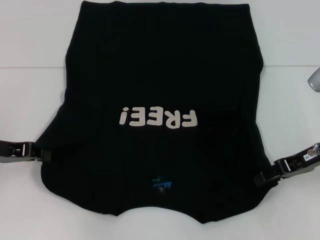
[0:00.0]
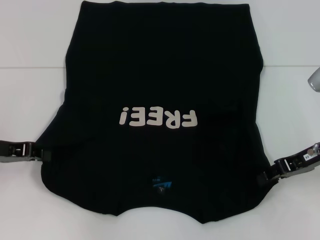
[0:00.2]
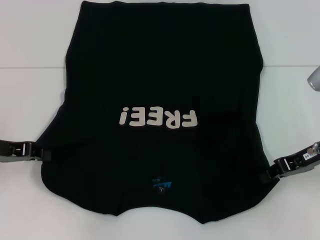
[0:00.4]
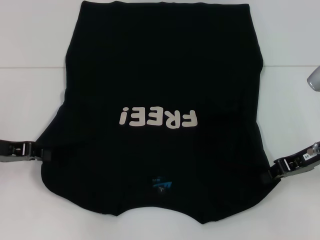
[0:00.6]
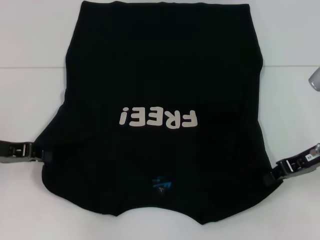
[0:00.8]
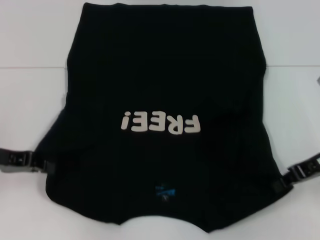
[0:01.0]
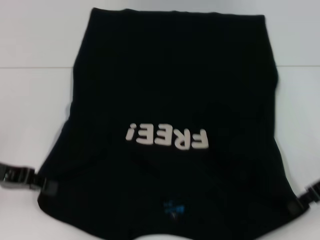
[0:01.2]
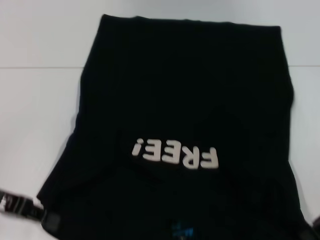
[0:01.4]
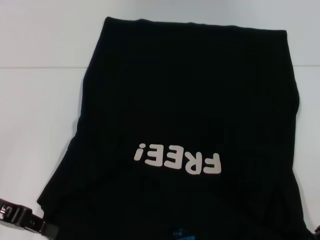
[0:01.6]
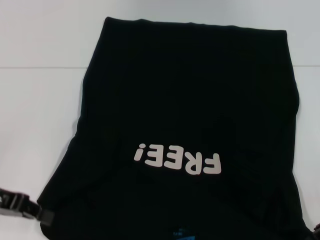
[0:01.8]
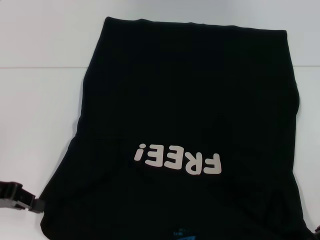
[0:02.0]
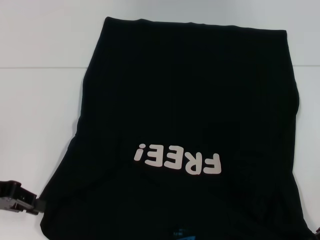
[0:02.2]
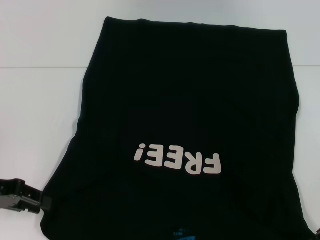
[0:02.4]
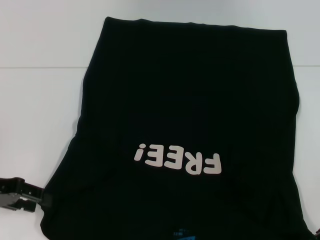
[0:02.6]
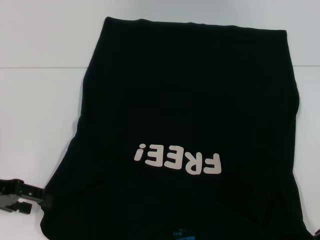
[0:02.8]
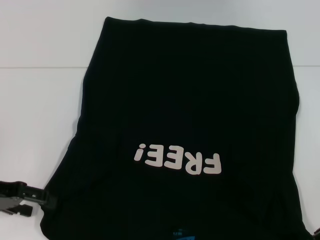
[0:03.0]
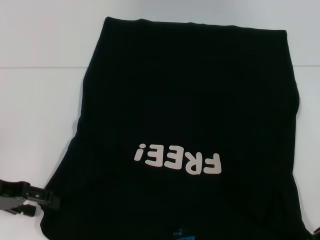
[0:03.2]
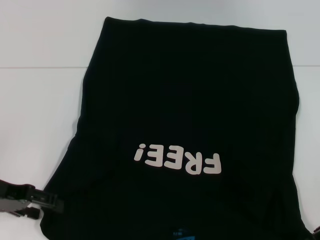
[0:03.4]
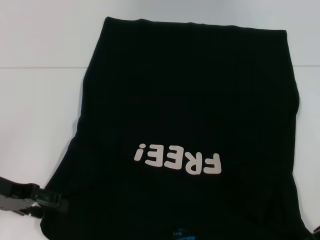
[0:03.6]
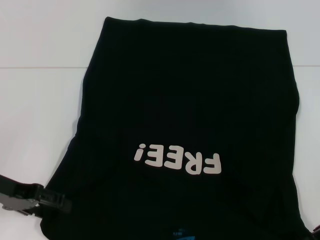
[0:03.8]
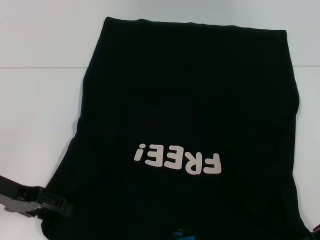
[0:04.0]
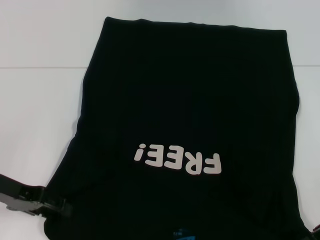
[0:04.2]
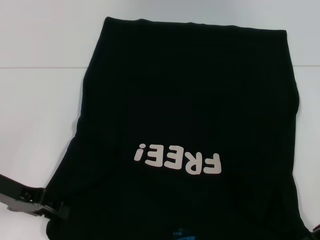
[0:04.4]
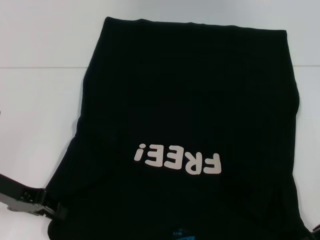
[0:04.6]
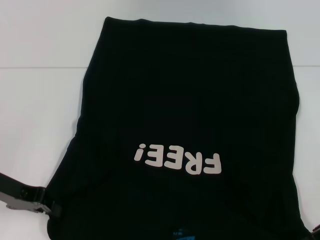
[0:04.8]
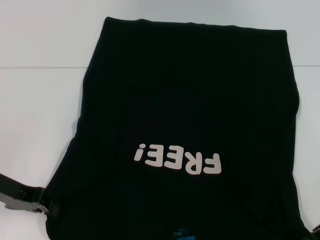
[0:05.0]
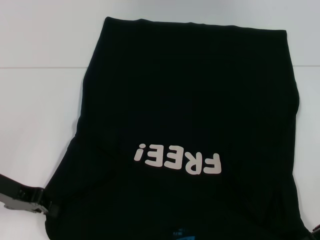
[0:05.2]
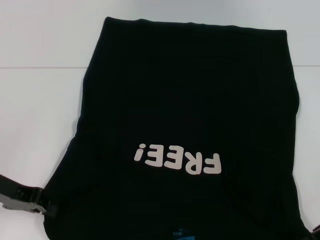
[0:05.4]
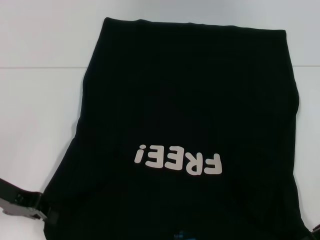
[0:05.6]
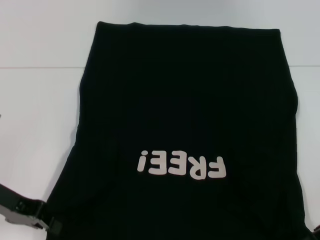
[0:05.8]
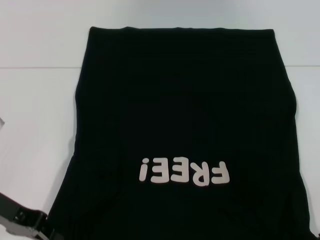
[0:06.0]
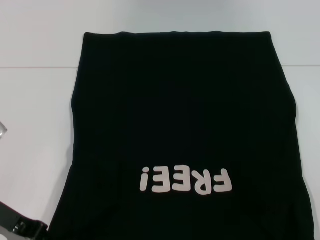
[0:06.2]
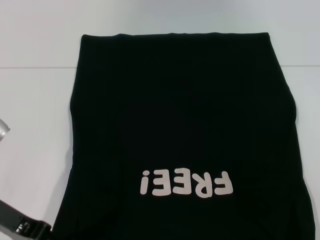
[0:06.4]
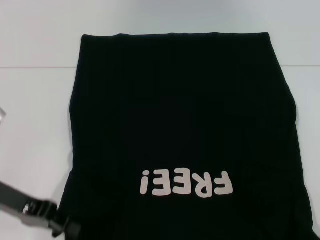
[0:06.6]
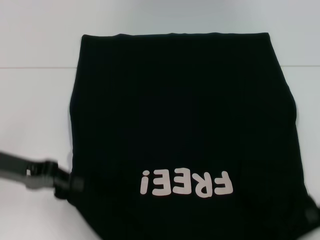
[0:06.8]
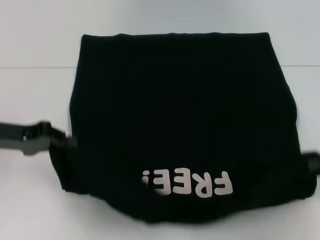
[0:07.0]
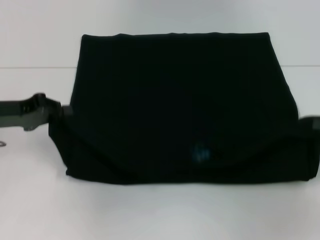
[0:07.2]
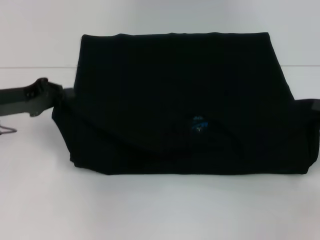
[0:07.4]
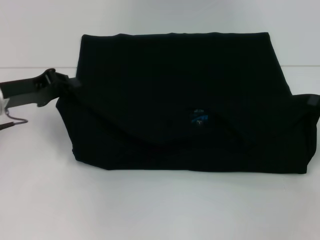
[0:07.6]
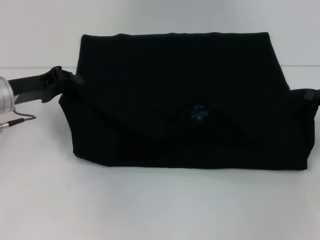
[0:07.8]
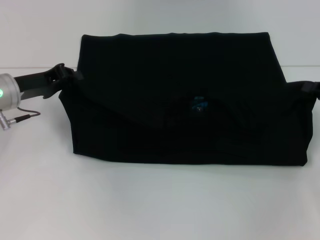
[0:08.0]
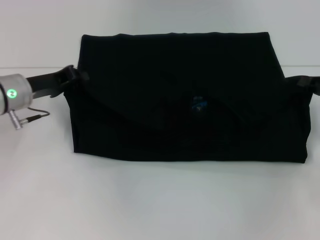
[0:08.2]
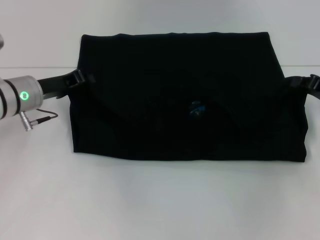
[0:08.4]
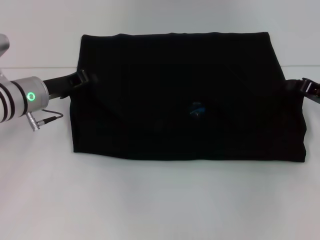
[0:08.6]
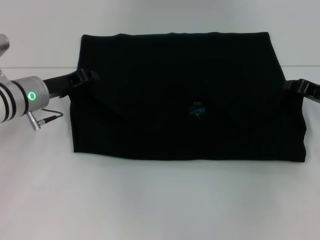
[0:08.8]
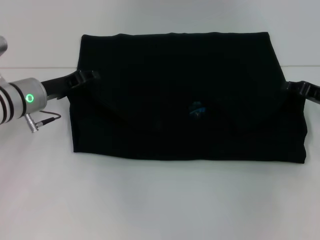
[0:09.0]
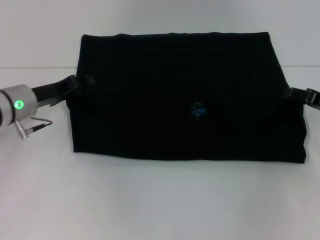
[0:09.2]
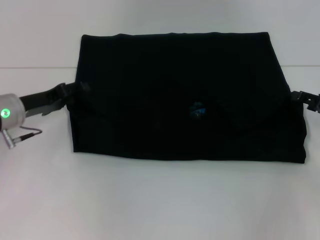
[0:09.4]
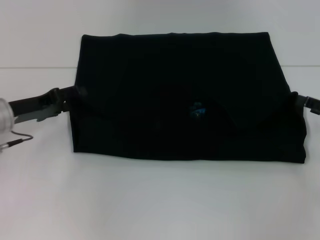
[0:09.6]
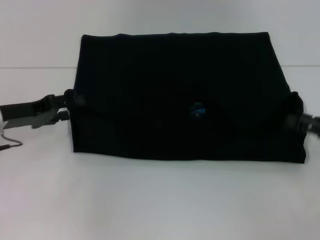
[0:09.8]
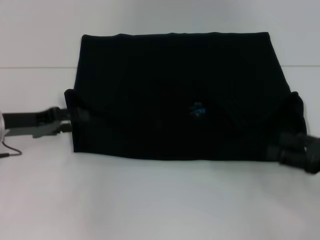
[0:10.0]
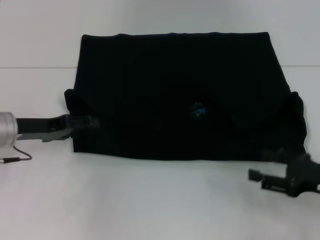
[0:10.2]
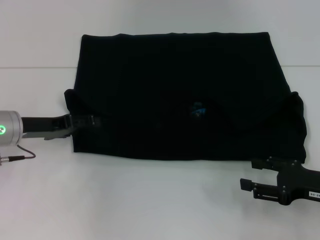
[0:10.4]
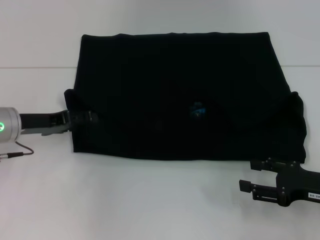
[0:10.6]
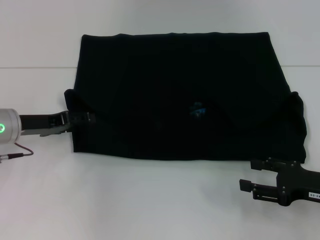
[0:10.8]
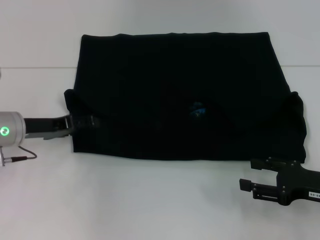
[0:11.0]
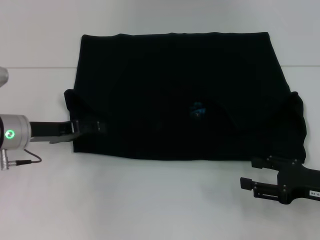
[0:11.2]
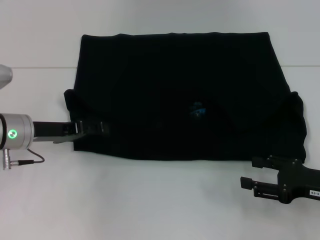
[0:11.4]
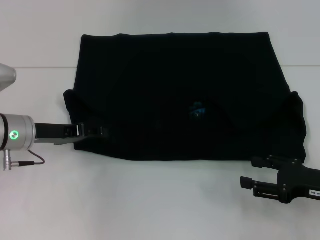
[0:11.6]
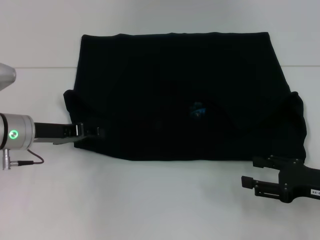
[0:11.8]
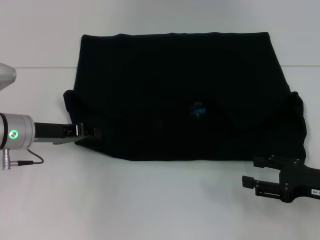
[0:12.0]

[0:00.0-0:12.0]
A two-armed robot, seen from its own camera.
Step, 0:00.8 to 0:09.4: Fold the clothes with your left hand.
Step, 0:00.8 to 0:09.4: Fold the clothes with your right hand.
0:00.0 to 0:01.6: The left gripper changes place by some 5 cm, while the right gripper moves backward, approximately 5 cm, and closes up.
0:01.6 to 0:03.0: The left gripper opens up.
0:03.0 to 0:04.4: The grippers move only a little.
0:04.4 to 0:06.0: The left gripper closes up.
0:06.0 to 0:07.6: The right gripper heads to the right, covering roughly 5 cm, while the left gripper goes about 10 cm forward.
0:07.6 to 0:09.0: The right gripper moves forward and to the left, approximately 10 cm. Meanwhile the left gripper is displaced to the right by about 5 cm.
0:09.0 to 0:10.4: The right gripper shifts roughly 10 cm backward, and opens its fingers; the left gripper ends up approximately 5 cm from where it was, and opens its fingers.
0:10.4 to 0:12.0: The left gripper closes.

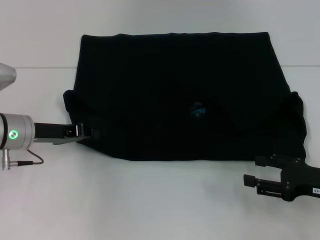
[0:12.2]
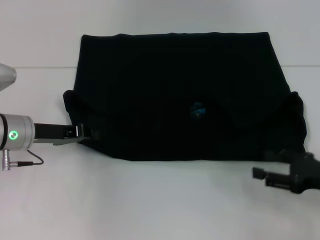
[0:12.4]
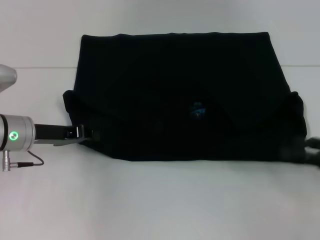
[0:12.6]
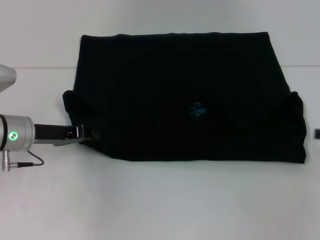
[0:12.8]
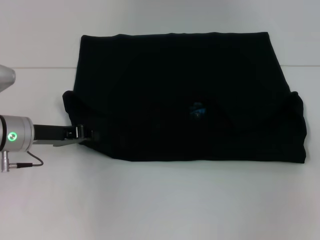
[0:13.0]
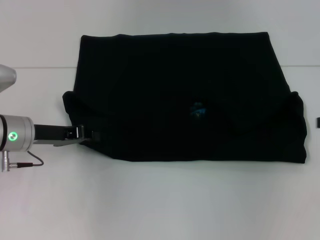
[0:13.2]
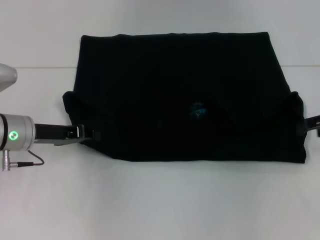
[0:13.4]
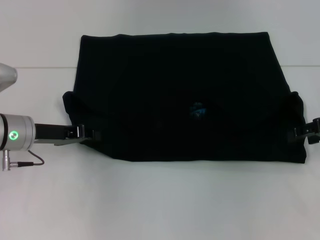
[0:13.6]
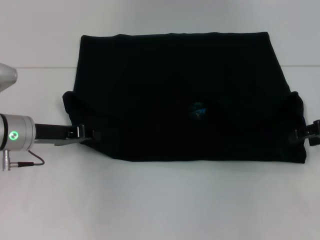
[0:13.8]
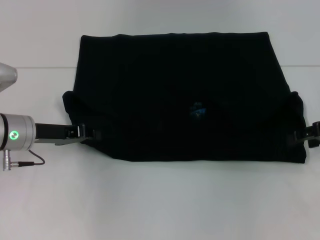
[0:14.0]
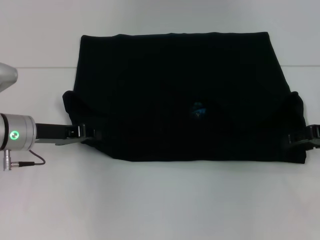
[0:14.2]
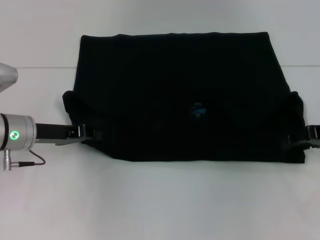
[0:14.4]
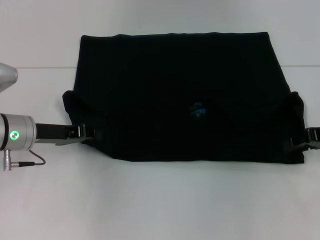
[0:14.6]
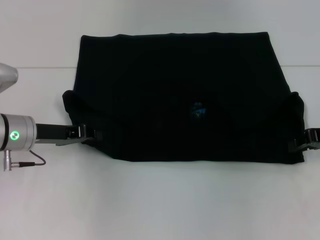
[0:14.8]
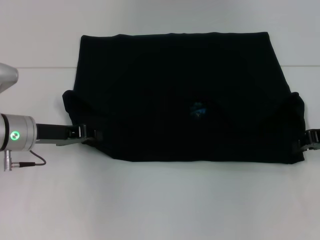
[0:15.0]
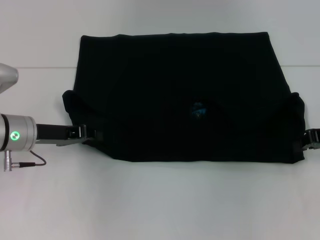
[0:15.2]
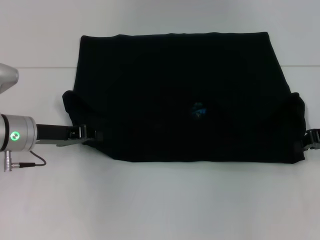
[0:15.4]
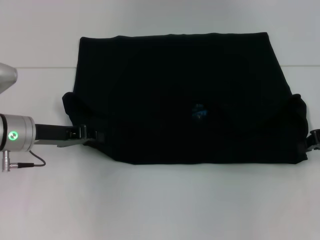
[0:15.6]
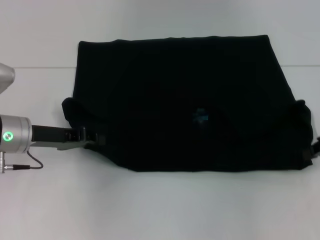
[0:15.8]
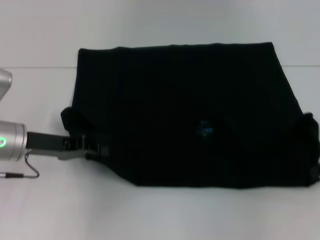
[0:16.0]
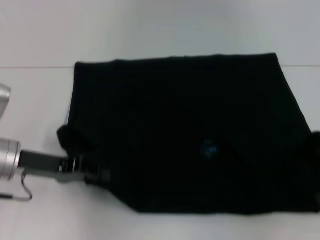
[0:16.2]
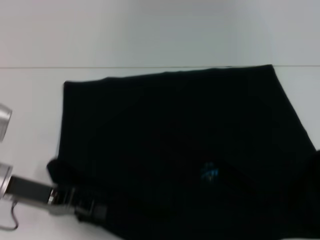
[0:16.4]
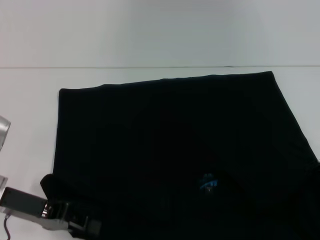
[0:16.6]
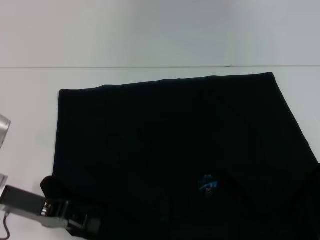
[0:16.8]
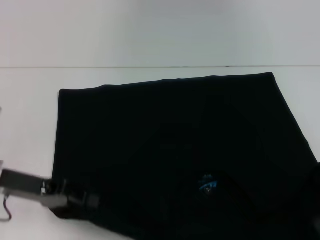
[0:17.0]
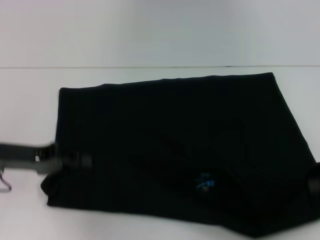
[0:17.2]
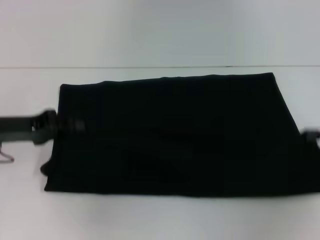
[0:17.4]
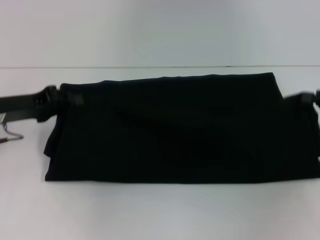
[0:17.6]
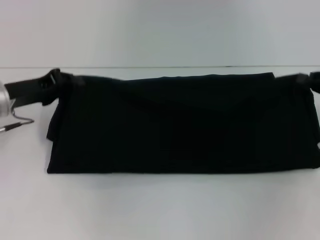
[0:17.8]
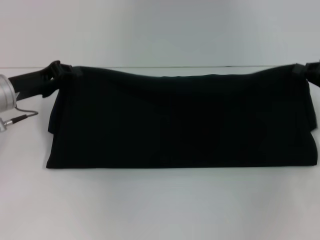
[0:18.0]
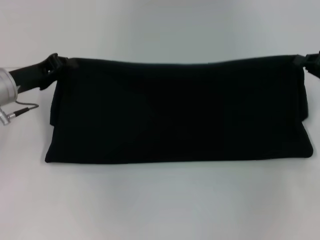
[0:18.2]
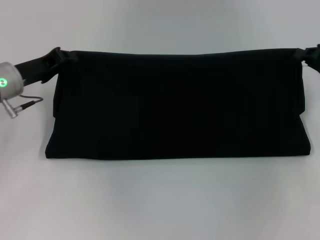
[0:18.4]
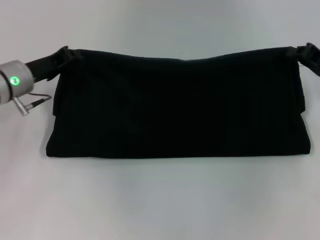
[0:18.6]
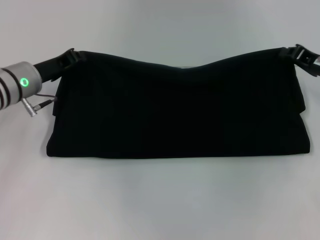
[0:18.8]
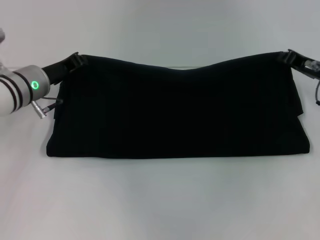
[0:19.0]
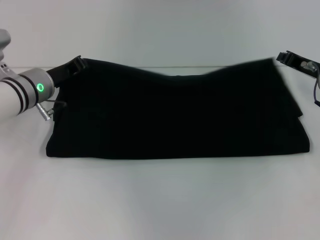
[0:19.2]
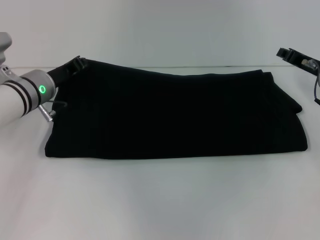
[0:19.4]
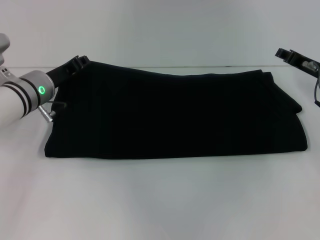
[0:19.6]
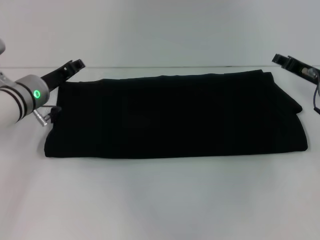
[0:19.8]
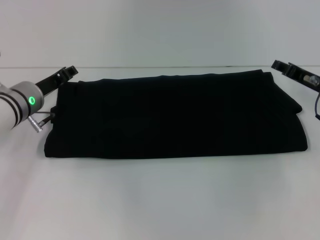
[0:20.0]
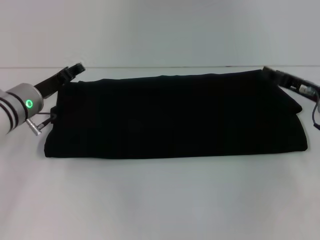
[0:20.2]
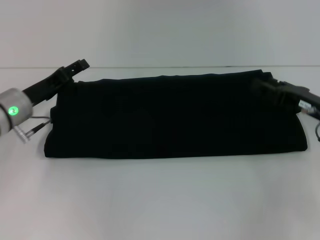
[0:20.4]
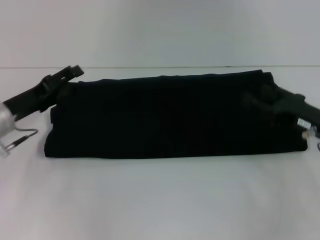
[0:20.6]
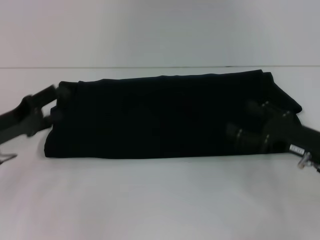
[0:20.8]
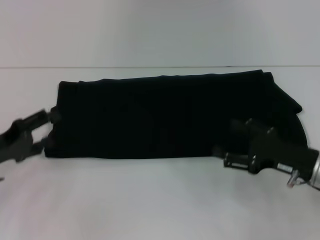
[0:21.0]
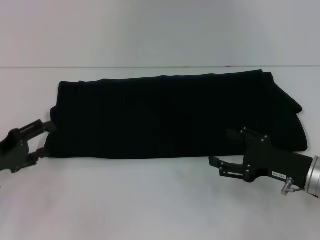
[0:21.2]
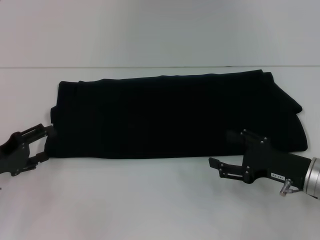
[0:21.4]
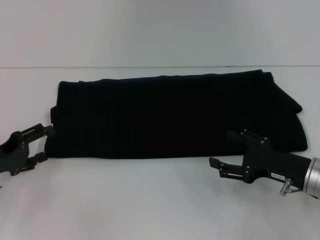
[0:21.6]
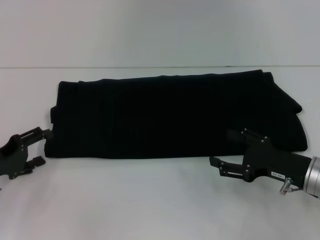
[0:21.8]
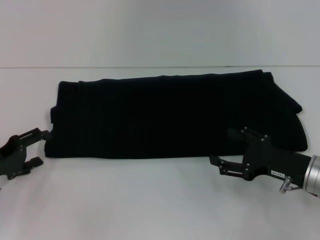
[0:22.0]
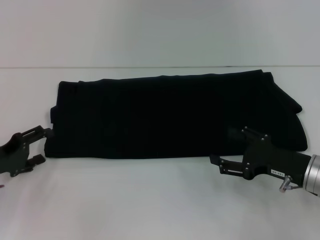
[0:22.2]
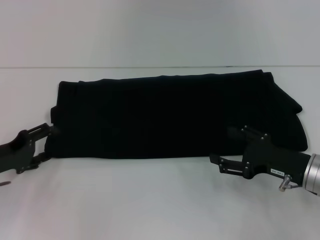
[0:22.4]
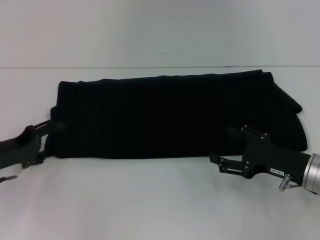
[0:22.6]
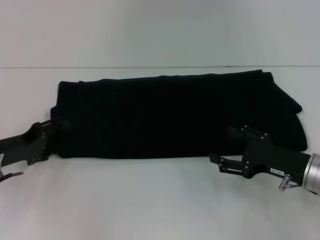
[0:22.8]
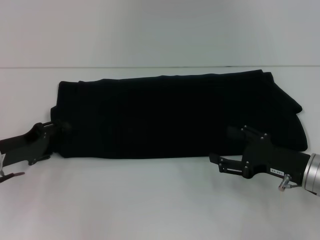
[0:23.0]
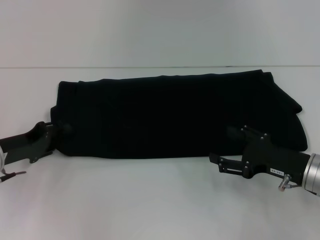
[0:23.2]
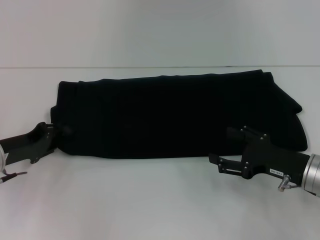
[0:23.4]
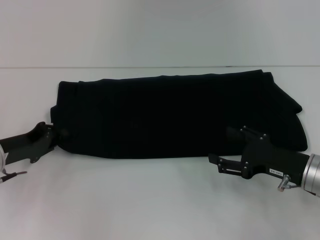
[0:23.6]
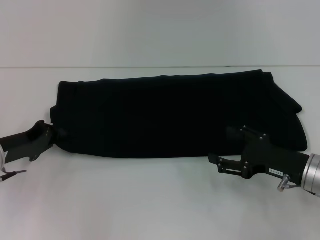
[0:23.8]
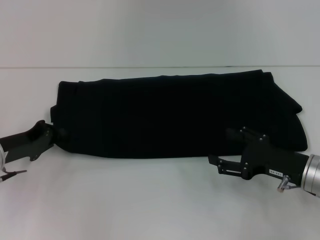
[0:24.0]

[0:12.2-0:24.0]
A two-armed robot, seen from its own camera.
Step, 0:12.2 to 0:16.8: Pull the clothes with your left hand.
Step, 0:12.2 to 0:16.8: Pull the clothes with your right hand.
Step, 0:17.0 to 0:19.6: Fold the clothes with your right hand.
Step, 0:17.0 to 0:19.6: Push the clothes with your left hand.
0:12.2 to 0:13.6: The right gripper shifts approximately 15 cm forward and upward.
0:13.6 to 0:15.2: The right gripper closes its fingers.
0:15.2 to 0:16.6: Both grippers travel together backward, roughly 10 cm.
0:16.6 to 0:18.2: The two grippers go roughly 10 cm forward.
0:18.2 to 0:19.6: The left gripper goes some 5 cm to the right; the right gripper heads to the left, covering approximately 5 cm.
0:19.6 to 0:21.0: The left gripper heads backward and to the left, covering some 15 cm, and opens its fingers. The right gripper is displaced backward by approximately 15 cm, and opens up.
0:21.0 to 0:22.6: The grippers make only small movements.
0:22.6 to 0:24.0: The left gripper closes its fingers.
